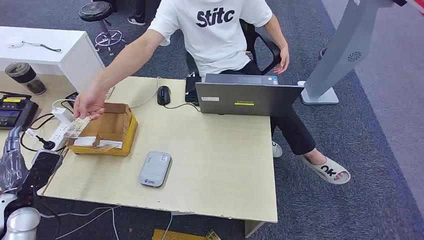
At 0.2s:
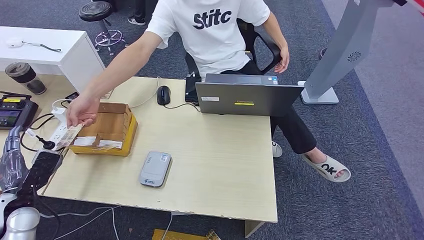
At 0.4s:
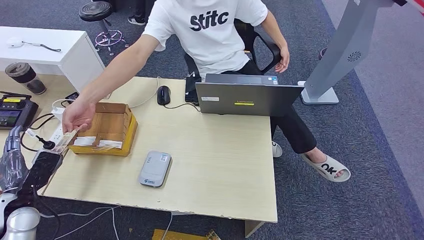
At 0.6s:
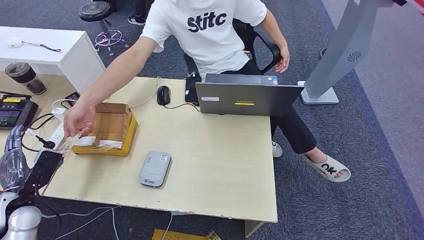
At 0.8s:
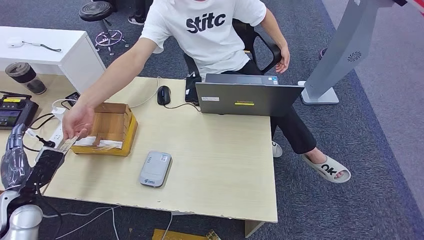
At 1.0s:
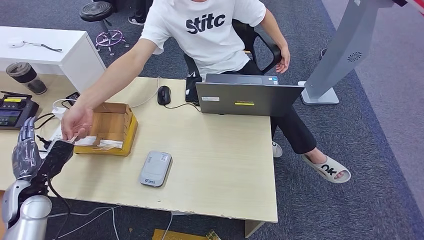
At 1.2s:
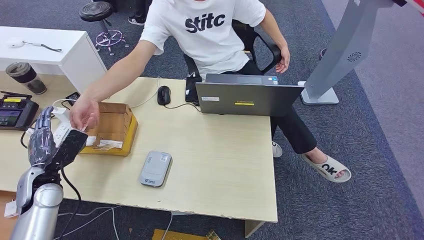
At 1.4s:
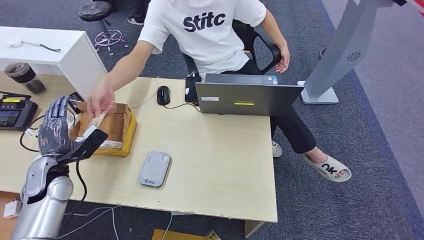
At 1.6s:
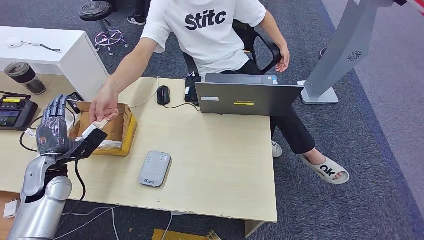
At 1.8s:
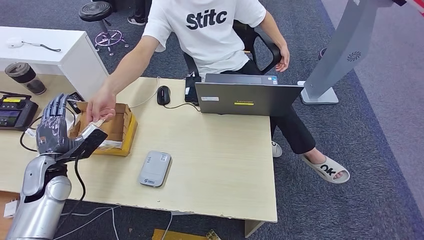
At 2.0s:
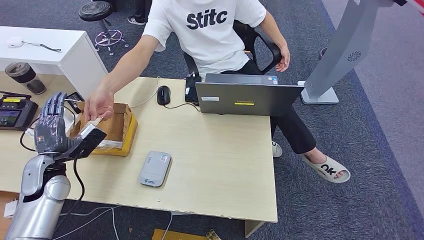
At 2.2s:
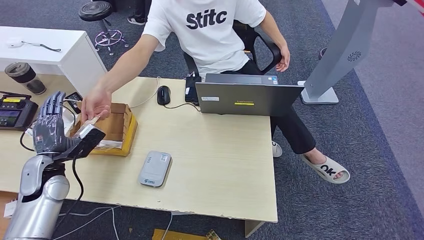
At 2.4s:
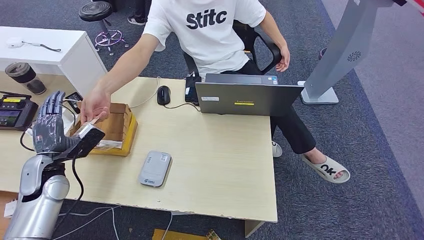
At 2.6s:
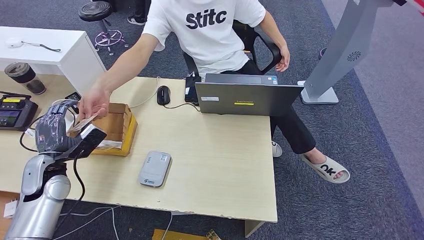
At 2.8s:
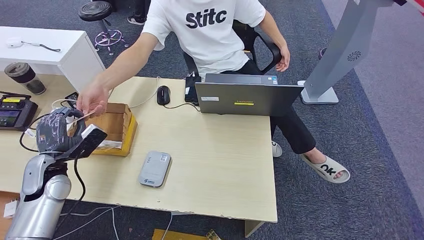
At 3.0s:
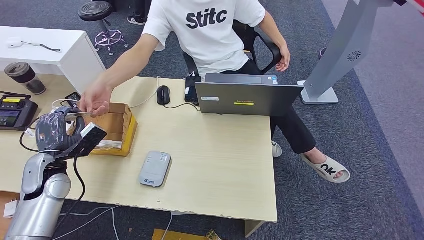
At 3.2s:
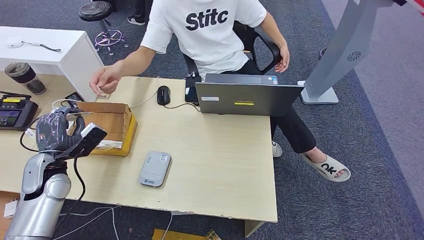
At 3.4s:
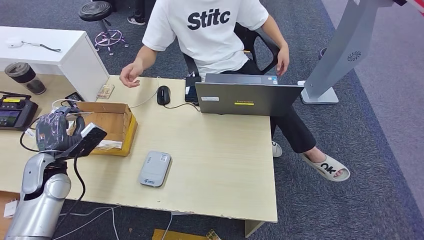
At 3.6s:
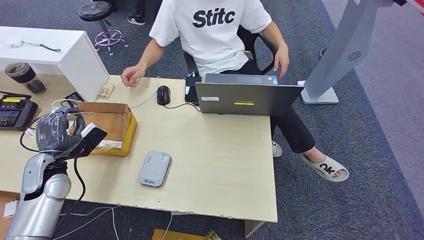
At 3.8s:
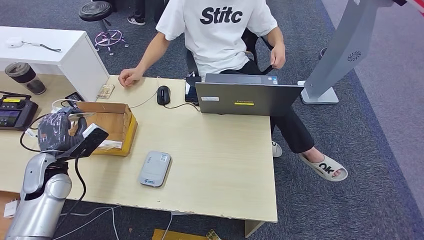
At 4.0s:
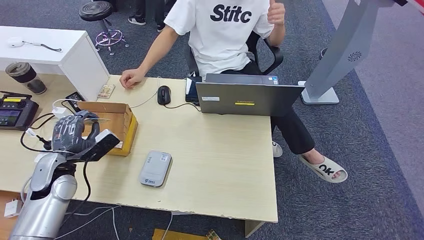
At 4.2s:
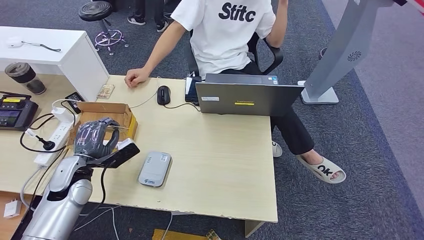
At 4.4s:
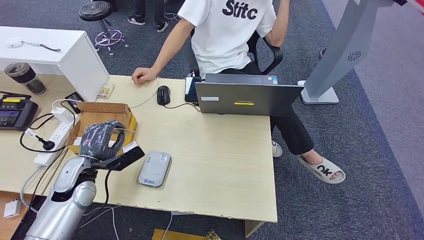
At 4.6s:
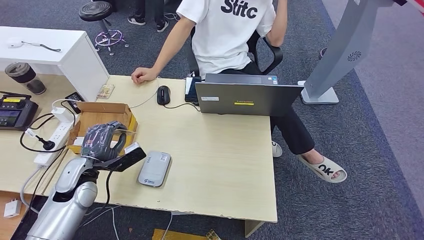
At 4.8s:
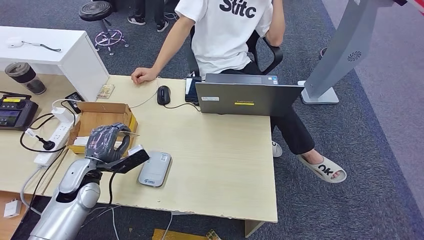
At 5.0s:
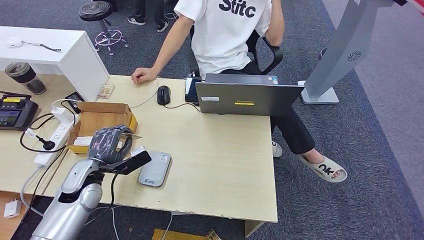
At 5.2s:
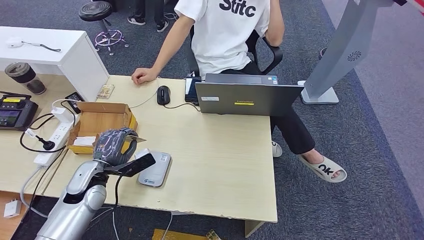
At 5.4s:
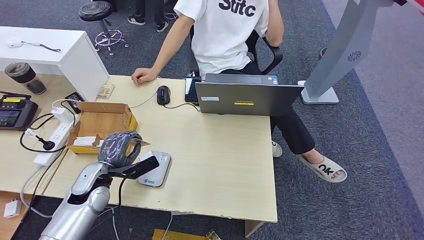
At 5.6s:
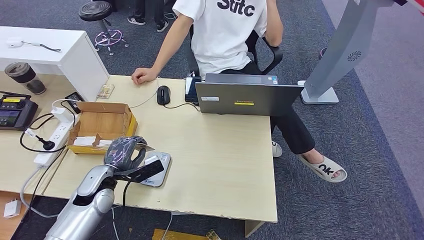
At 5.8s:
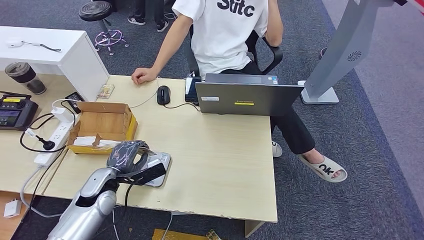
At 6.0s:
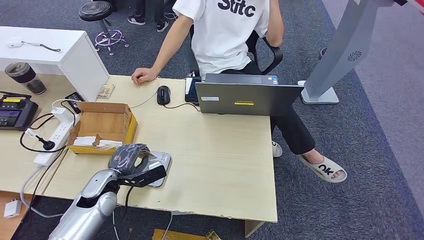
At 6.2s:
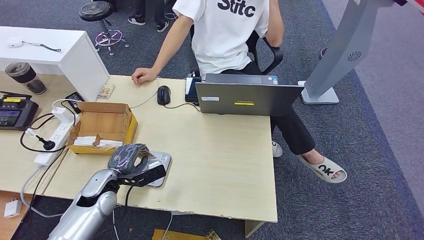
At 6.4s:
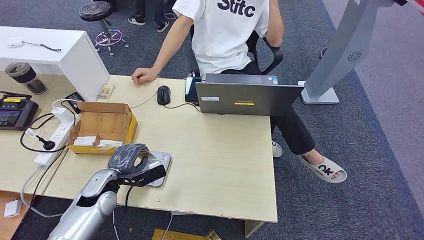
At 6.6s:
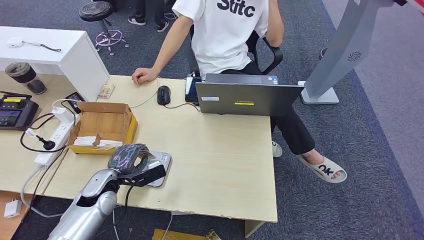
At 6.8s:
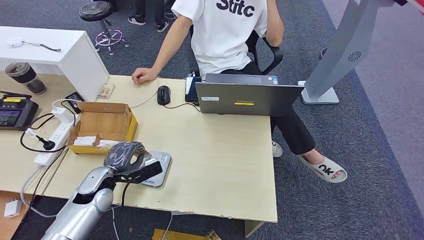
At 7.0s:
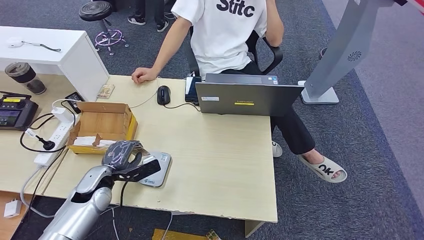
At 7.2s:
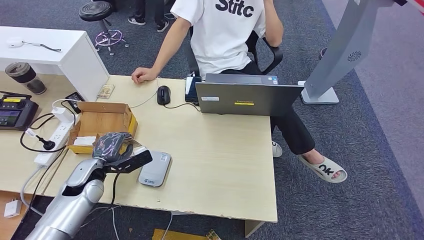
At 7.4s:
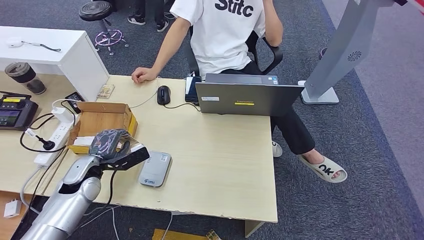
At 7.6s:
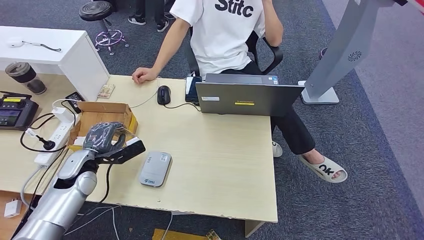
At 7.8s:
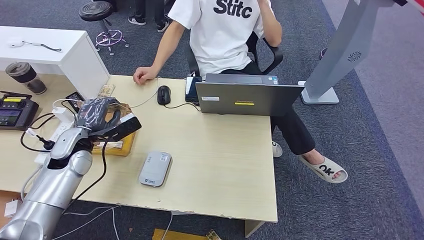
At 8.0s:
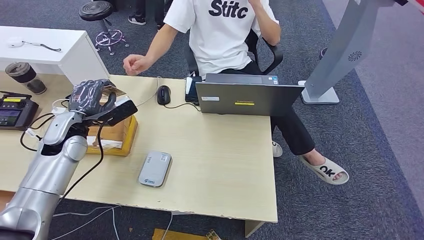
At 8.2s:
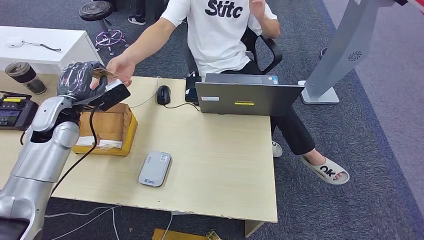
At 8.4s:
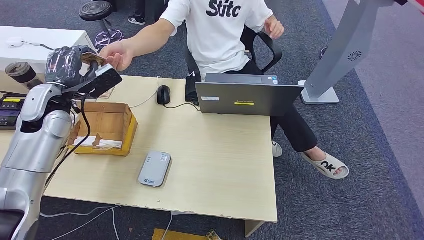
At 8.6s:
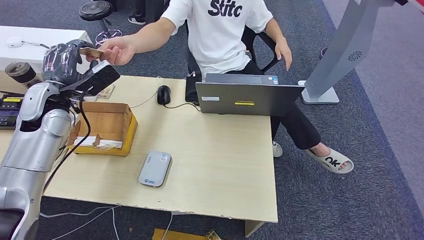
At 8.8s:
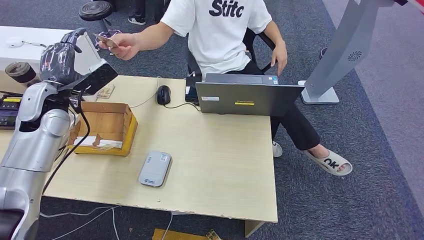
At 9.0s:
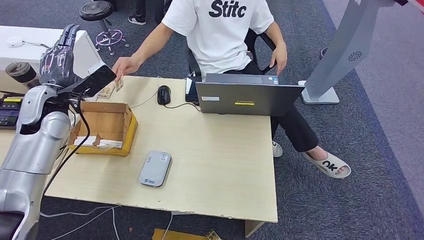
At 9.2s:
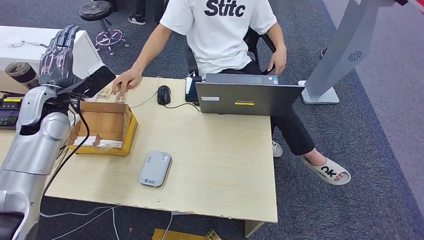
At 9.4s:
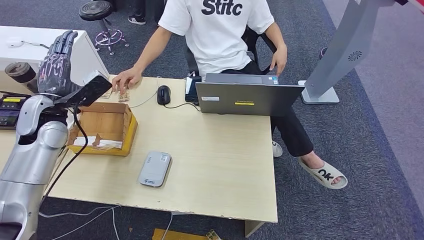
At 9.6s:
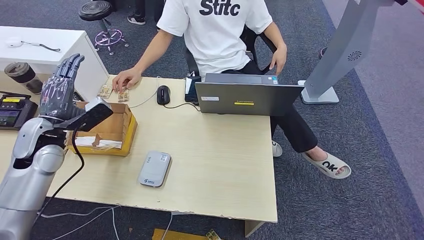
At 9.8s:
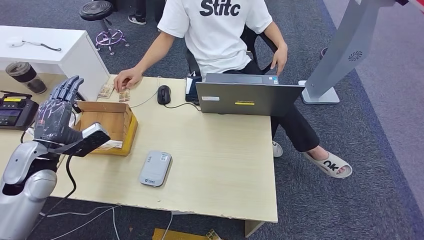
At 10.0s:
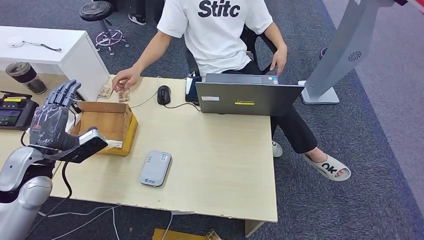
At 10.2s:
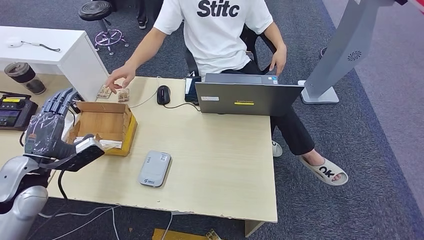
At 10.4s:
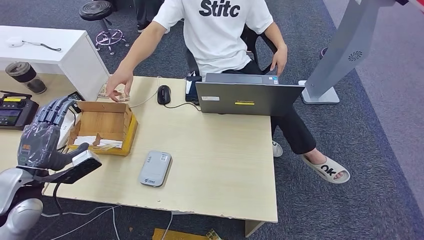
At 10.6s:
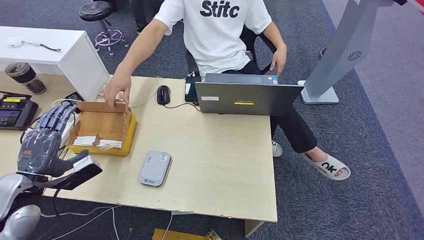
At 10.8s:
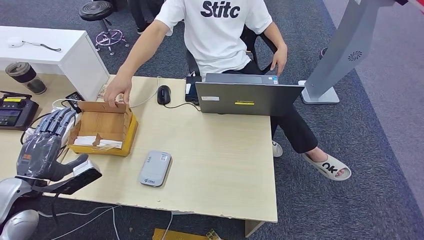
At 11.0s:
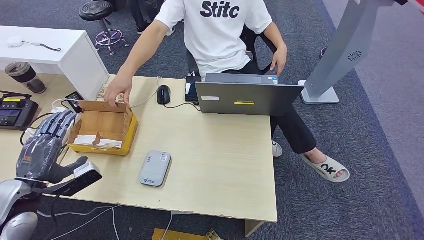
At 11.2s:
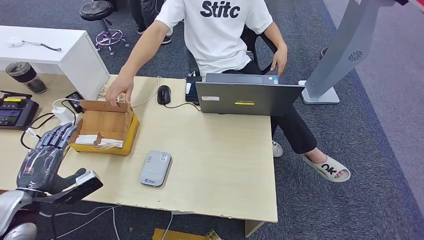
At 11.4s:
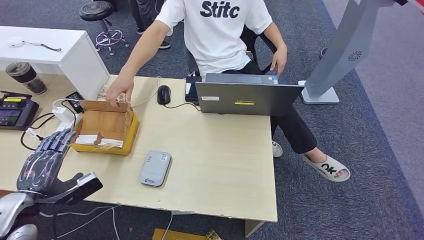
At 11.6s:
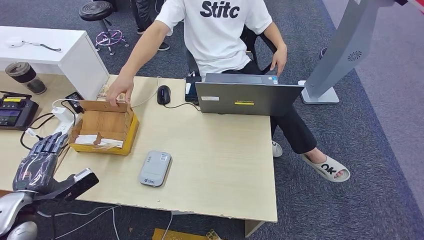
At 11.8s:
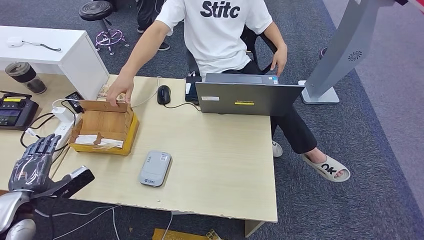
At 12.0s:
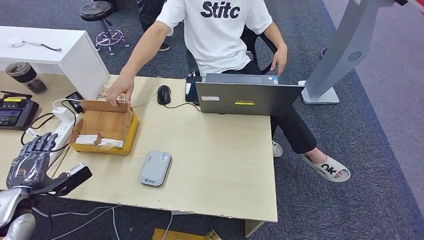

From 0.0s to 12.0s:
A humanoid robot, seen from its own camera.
Step, from 0.0s to 3.2s: Take the ID card from the person's hand.
Step, from 4.0s to 6.6s: Place the ID card on the card reader.
Step, from 7.4s to 9.0s: Hand the ID card to the person.
From 1.6s to 3.0s: Both hands stay about where they are.
From 3.0s to 4.4s: The left hand travels to the right by about 5 cm.
From 4.4s to 6.0s: The left hand shifts roughly 5 cm downward.
From 6.0s to 7.6s: The left hand goes approximately 5 cm to the left.
From 7.6s to 9.0s: The left hand travels upward and forward by approximately 20 cm.
From 9.0s to 10.4s: The left hand moves backward and downward, about 20 cm.
From 10.4s to 12.0s: The left hand moves downward and to the left, roughly 10 cm.

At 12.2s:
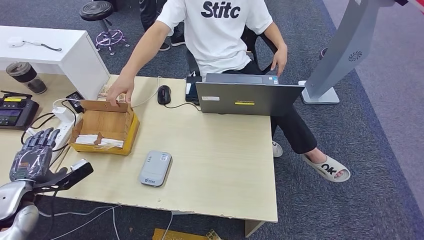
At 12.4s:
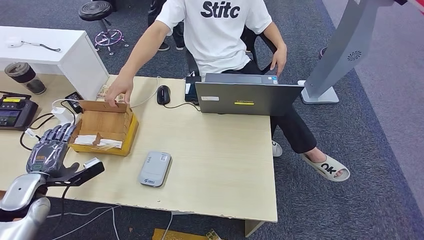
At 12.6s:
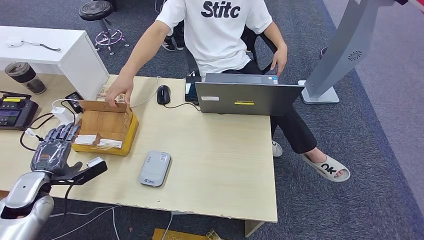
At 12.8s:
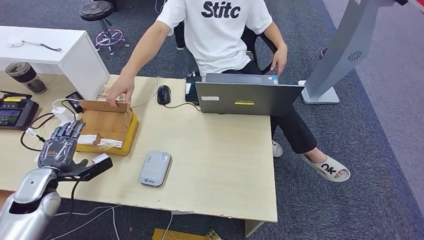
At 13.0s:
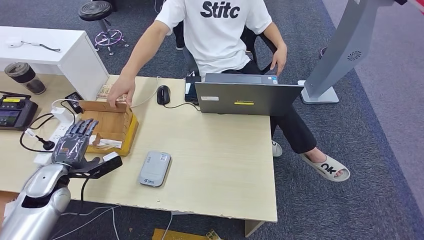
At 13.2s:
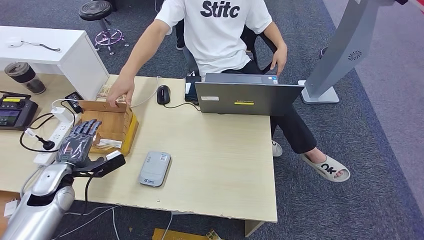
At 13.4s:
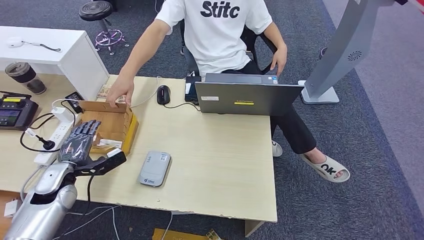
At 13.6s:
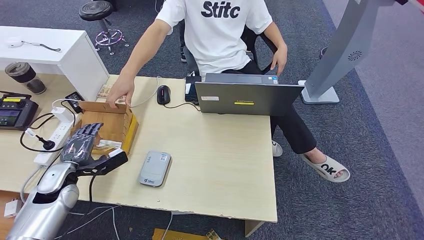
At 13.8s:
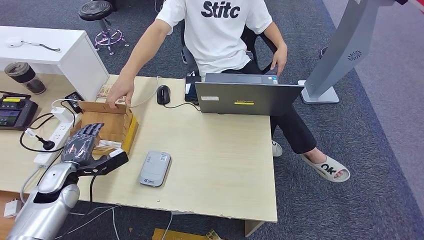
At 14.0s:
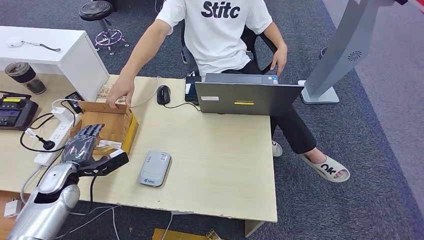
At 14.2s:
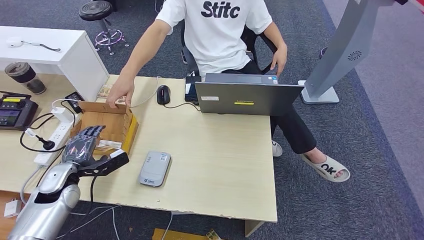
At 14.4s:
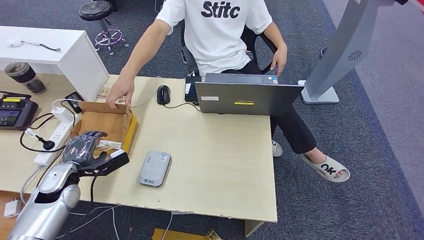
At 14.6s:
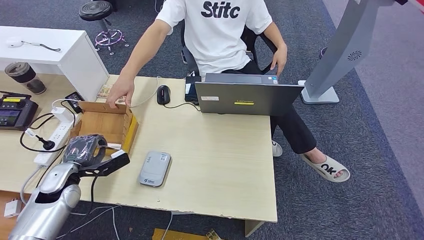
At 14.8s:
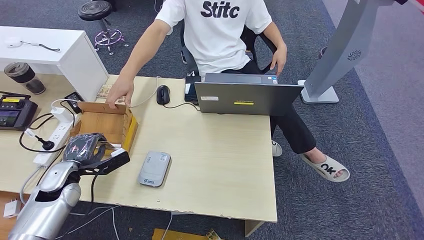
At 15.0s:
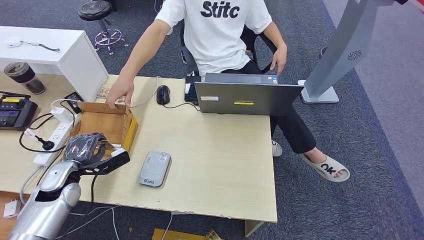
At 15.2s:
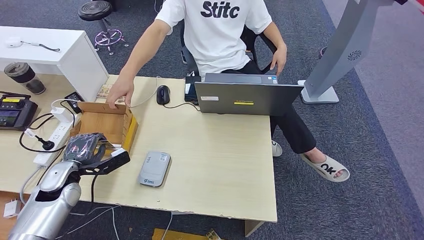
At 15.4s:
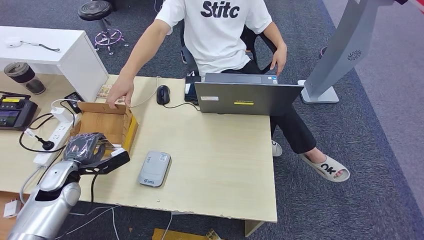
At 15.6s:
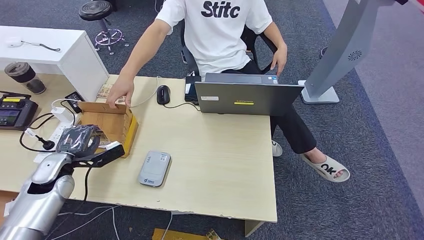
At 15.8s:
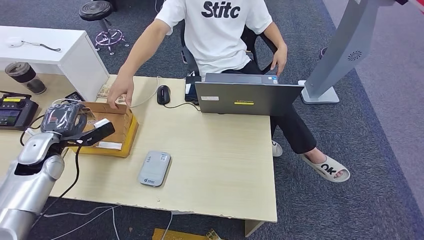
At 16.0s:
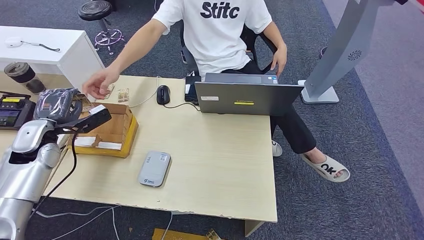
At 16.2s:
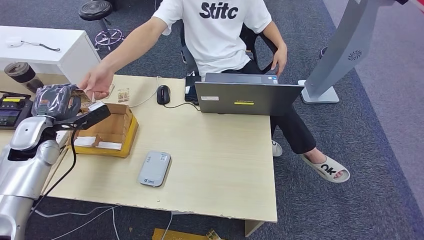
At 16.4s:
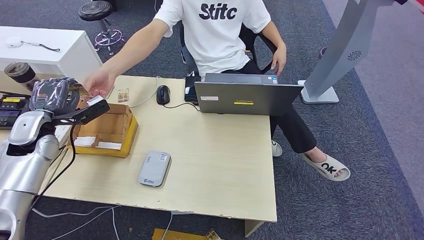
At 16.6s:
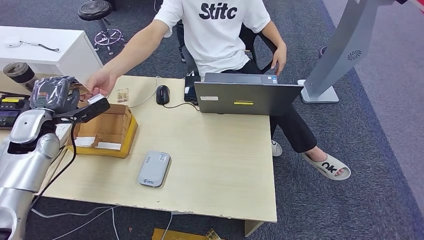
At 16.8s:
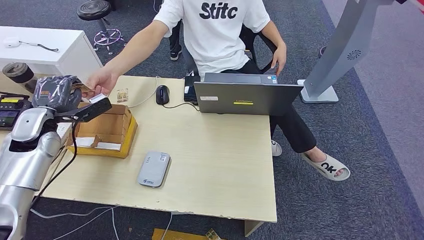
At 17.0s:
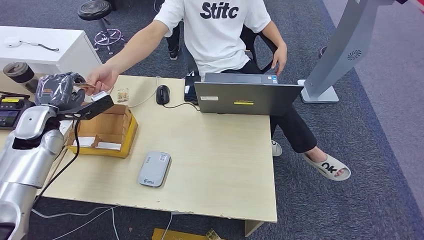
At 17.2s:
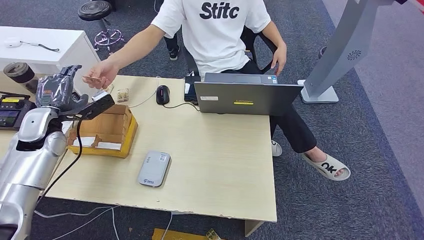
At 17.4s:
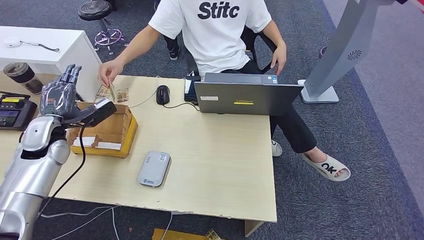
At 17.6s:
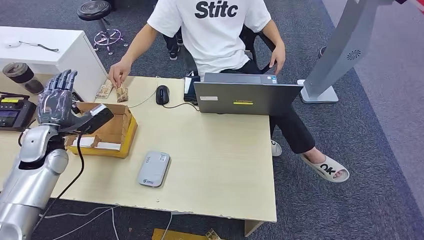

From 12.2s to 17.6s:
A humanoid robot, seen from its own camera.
Step, from 12.2s to 15.8s: Pick up the room key from the key card box.
Step, from 16.2s to 17.4s: Hand the room key to the person.
From 12.2s to 13.6s: The left hand shifts about 10 cm forward and to the right.
From 13.6s to 15.0s: The two hands keep their place.
From 15.0s to 16.2s: The left hand heads upward and forward, covering roughly 15 cm.
From 16.2s to 17.6s: The hands move only a little.
